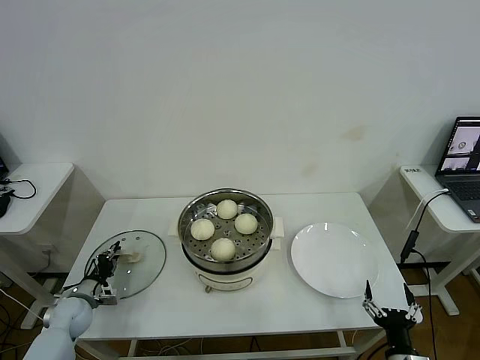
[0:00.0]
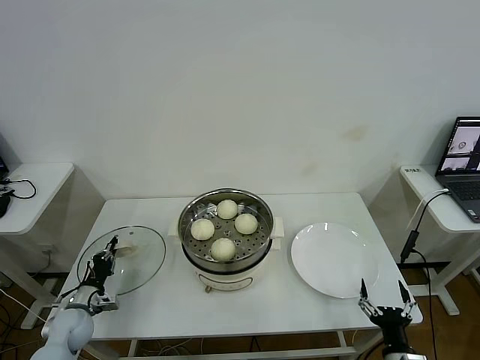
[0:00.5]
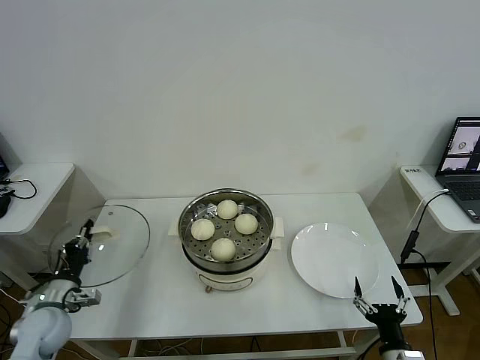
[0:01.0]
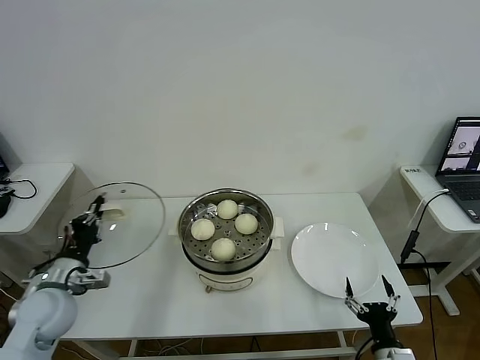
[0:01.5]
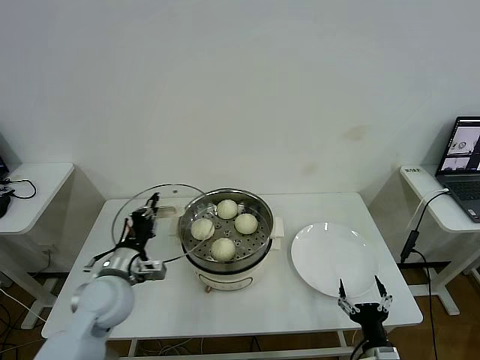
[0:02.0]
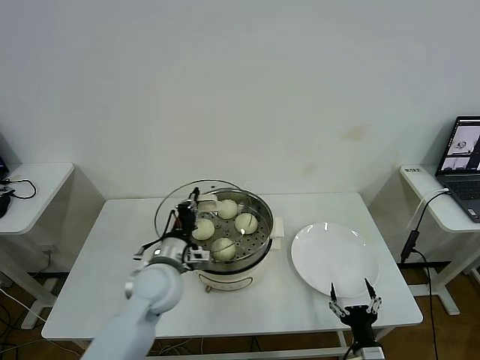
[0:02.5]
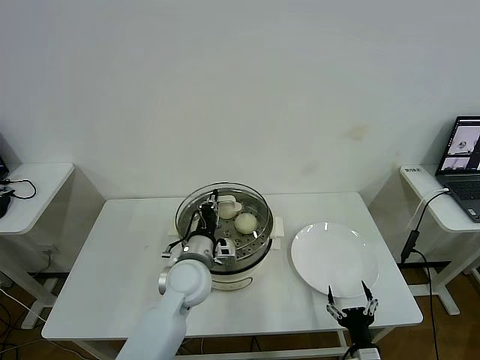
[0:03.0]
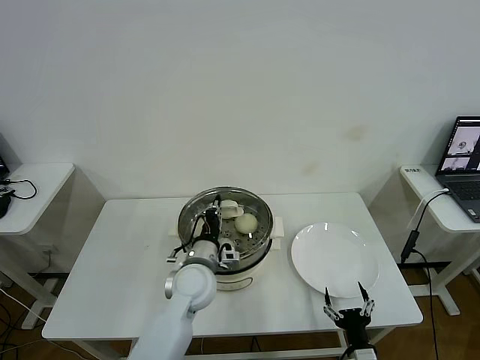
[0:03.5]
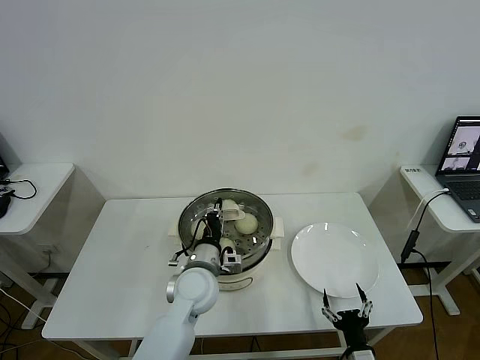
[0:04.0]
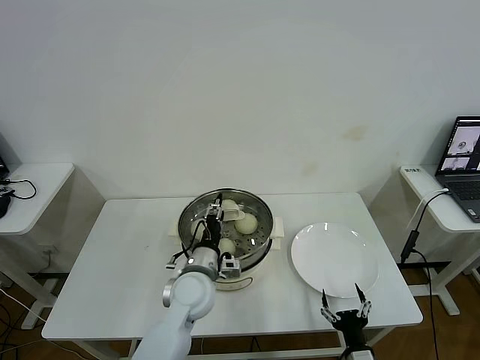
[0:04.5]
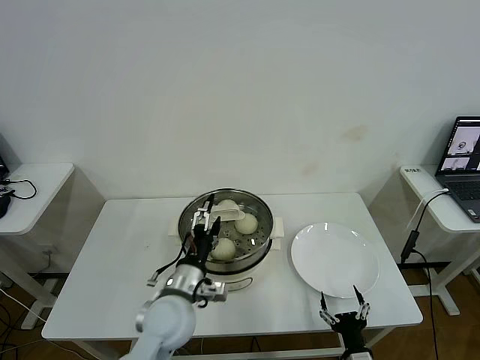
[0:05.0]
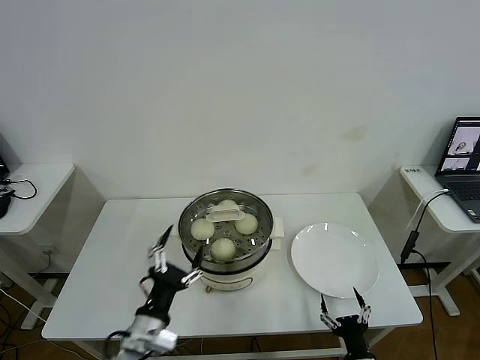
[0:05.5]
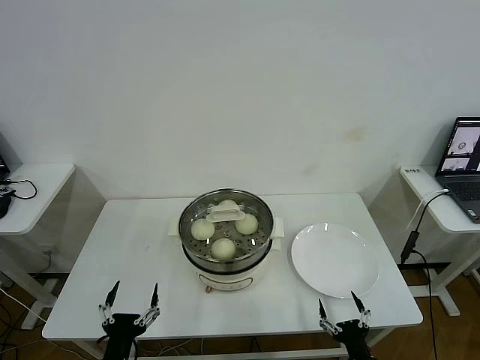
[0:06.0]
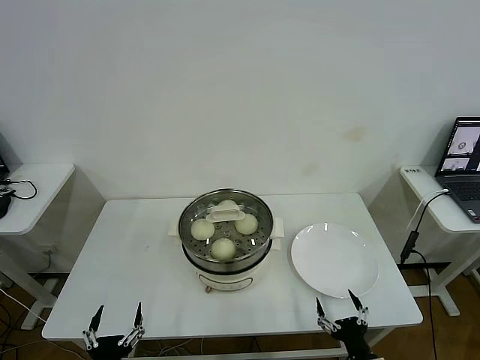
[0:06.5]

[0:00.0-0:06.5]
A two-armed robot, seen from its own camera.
Task of the whole recording: take steamed baozi put them in steamer then cover it.
Step, 0:00.5 to 0:04.5: Place the pot lid on the steamer with left gripper.
0:00.0 to 0:02.0: The left gripper travels upward and to the right by approximately 25 cm.
0:02.0 to 0:04.5: The left gripper goes roughly 15 cm to the right, and opens.
0:04.5 to 0:06.5: The left gripper travels backward and to the left by approximately 30 cm, and opens its fingers.
